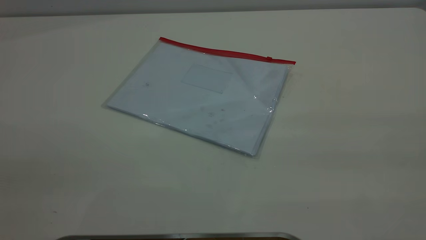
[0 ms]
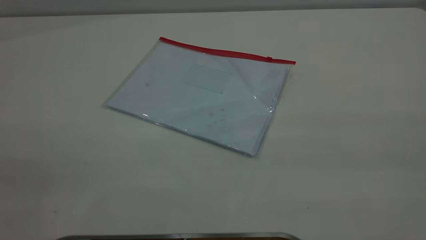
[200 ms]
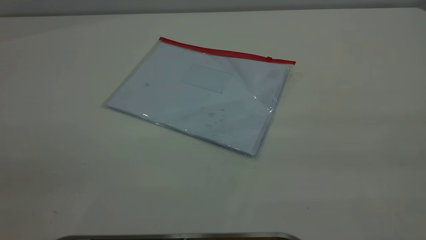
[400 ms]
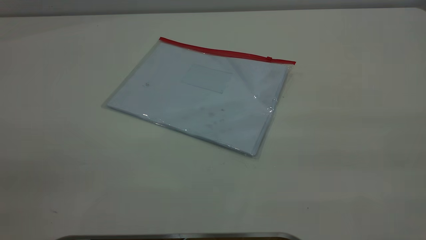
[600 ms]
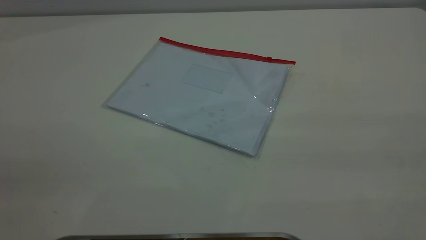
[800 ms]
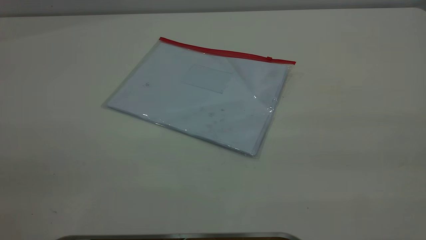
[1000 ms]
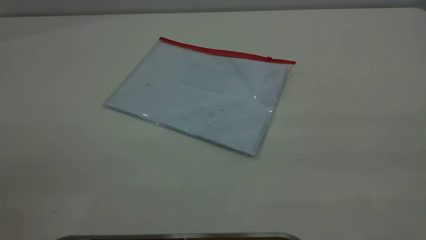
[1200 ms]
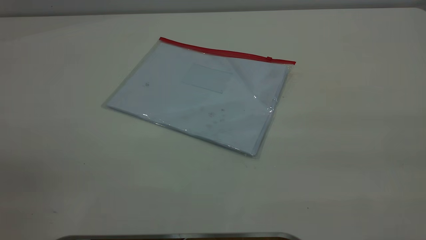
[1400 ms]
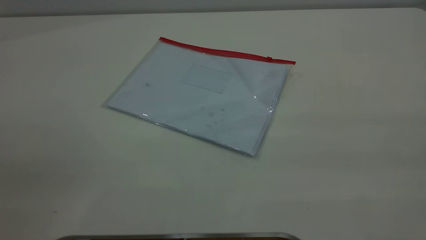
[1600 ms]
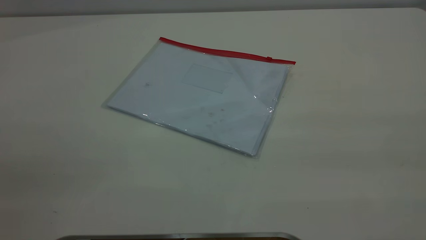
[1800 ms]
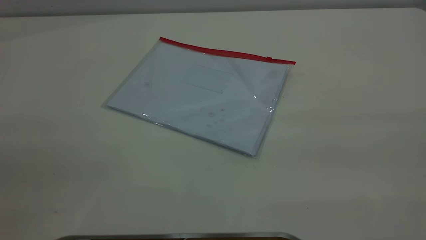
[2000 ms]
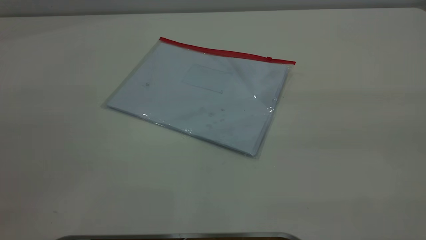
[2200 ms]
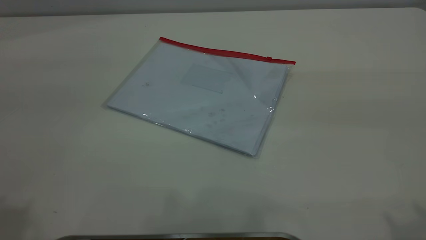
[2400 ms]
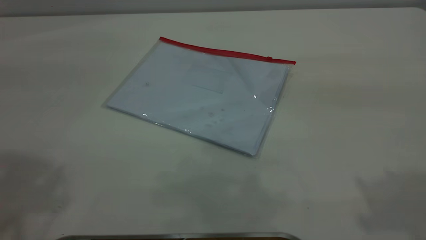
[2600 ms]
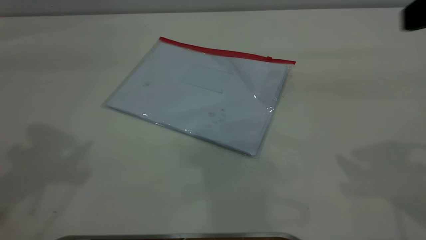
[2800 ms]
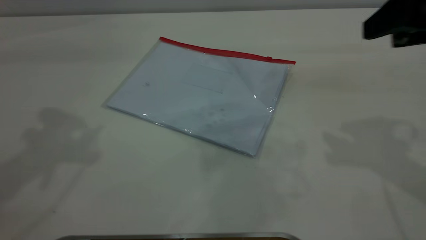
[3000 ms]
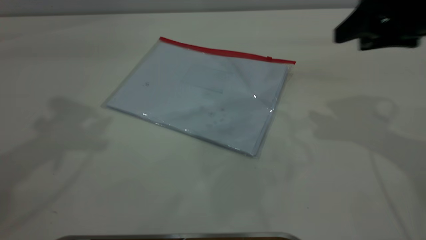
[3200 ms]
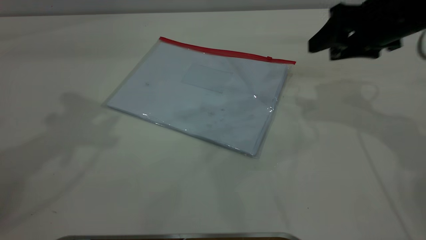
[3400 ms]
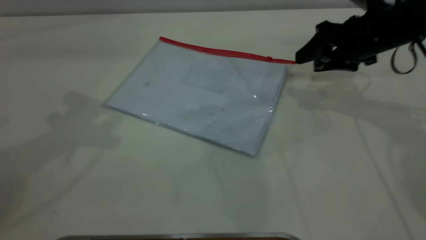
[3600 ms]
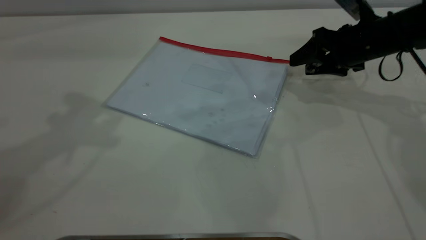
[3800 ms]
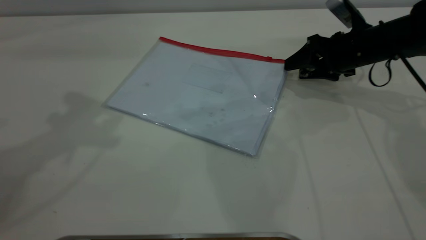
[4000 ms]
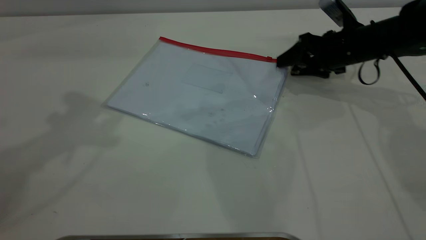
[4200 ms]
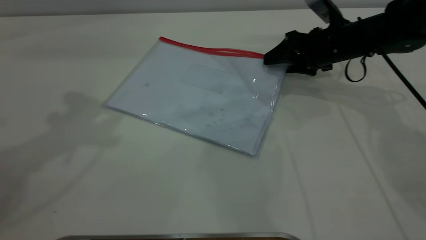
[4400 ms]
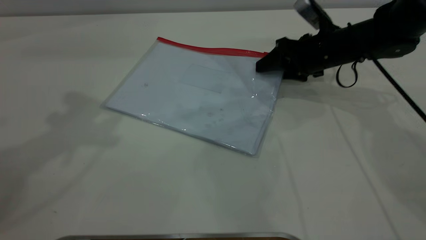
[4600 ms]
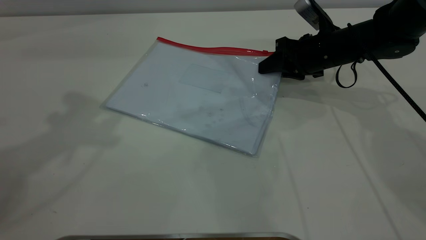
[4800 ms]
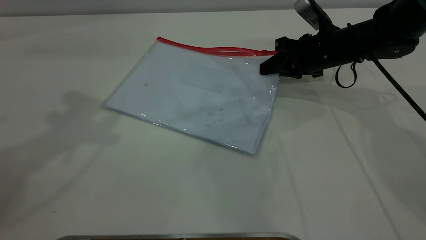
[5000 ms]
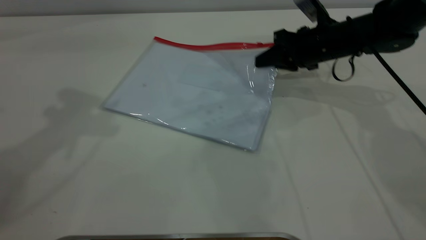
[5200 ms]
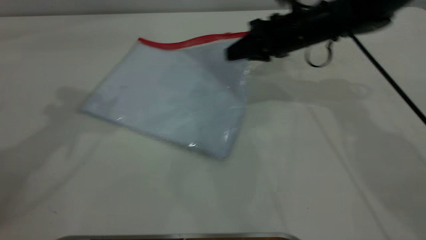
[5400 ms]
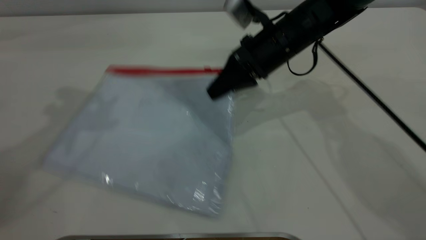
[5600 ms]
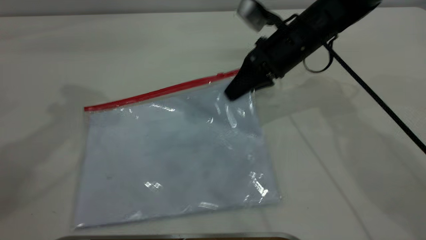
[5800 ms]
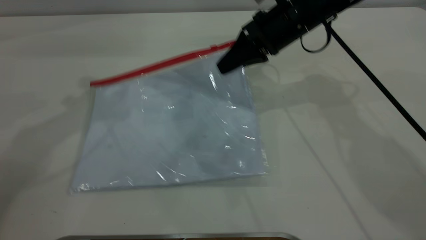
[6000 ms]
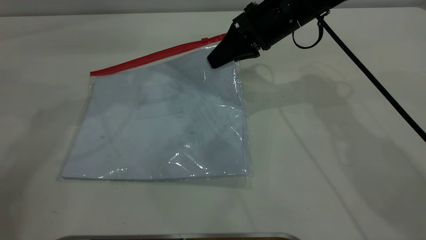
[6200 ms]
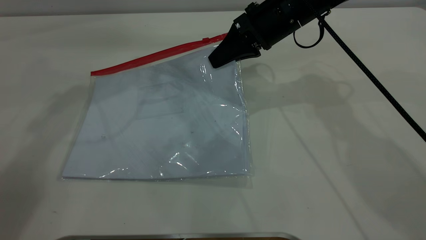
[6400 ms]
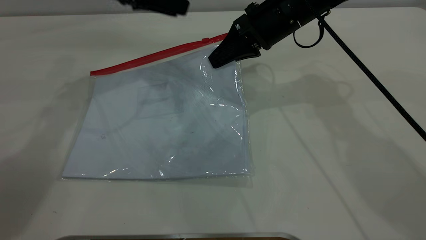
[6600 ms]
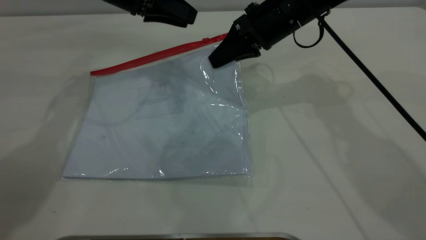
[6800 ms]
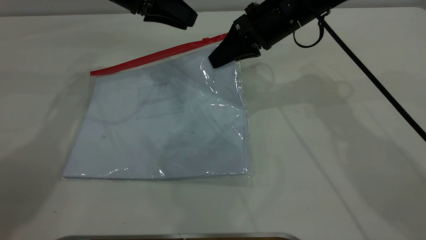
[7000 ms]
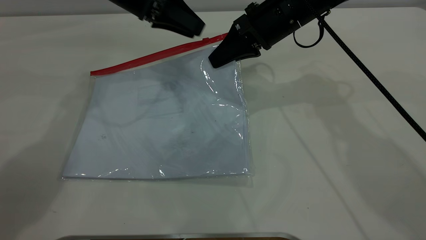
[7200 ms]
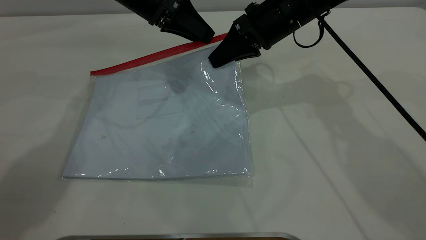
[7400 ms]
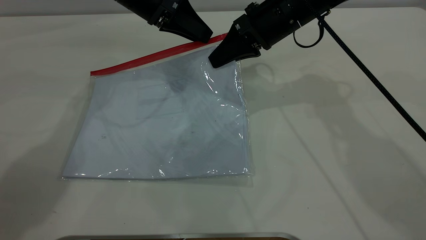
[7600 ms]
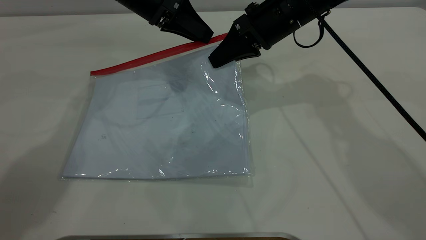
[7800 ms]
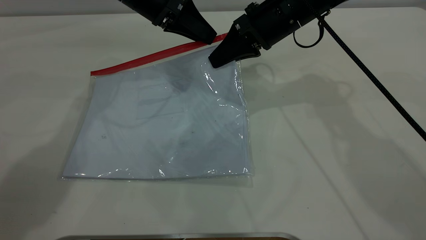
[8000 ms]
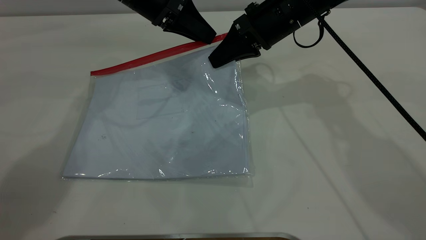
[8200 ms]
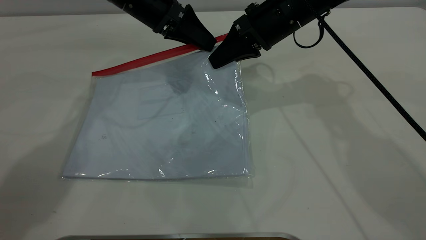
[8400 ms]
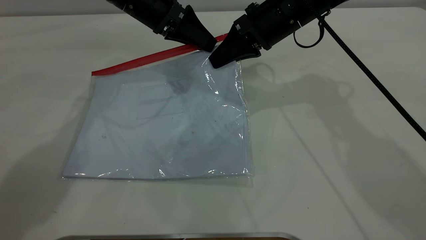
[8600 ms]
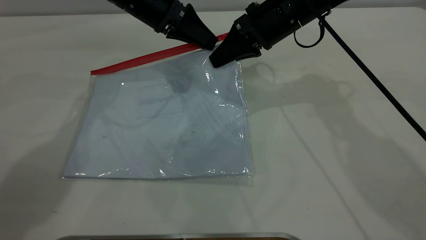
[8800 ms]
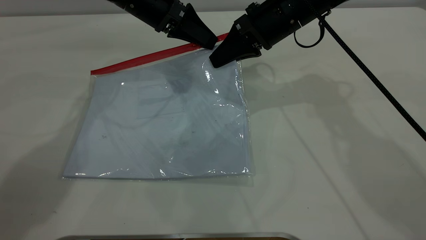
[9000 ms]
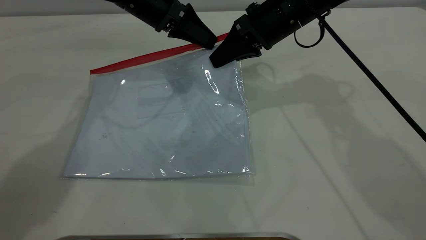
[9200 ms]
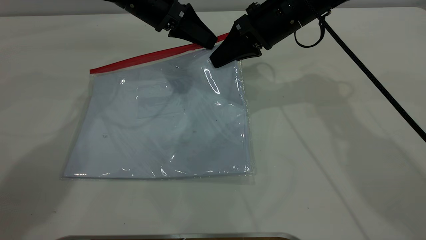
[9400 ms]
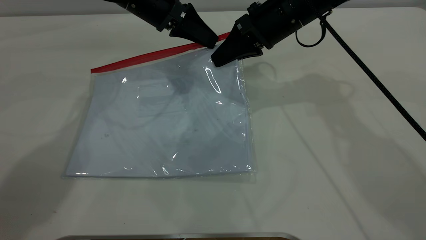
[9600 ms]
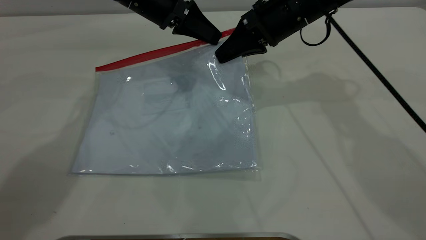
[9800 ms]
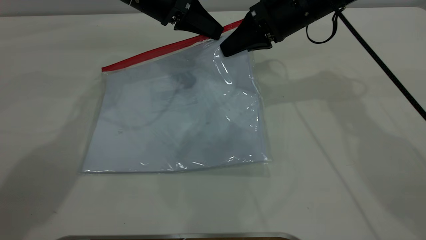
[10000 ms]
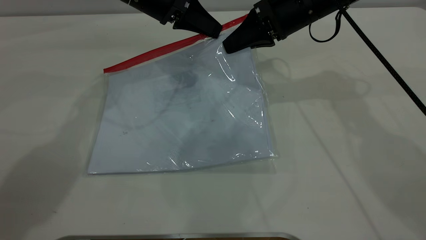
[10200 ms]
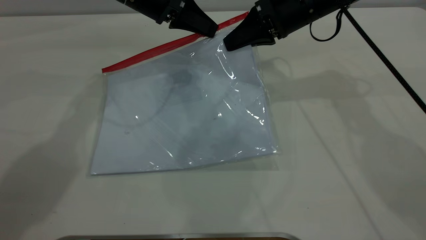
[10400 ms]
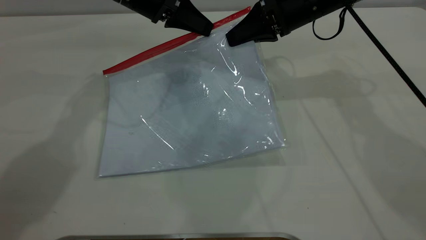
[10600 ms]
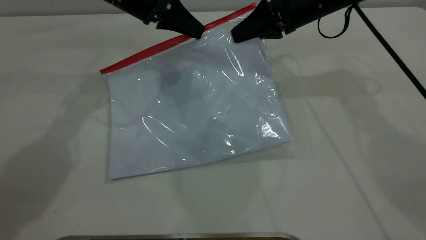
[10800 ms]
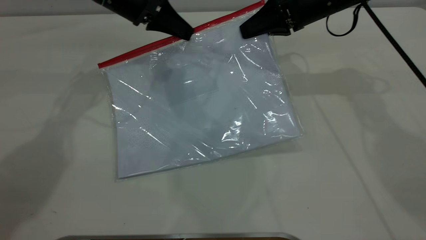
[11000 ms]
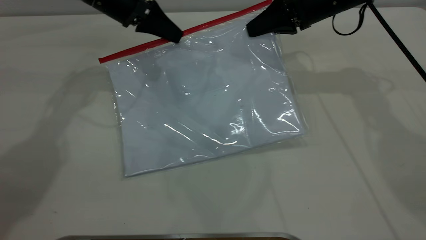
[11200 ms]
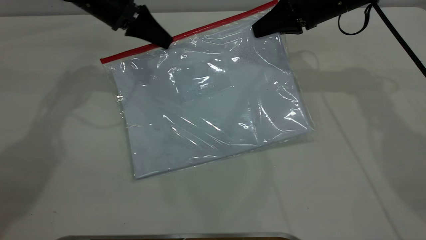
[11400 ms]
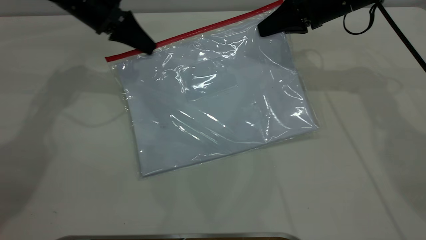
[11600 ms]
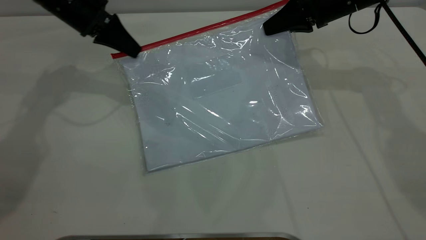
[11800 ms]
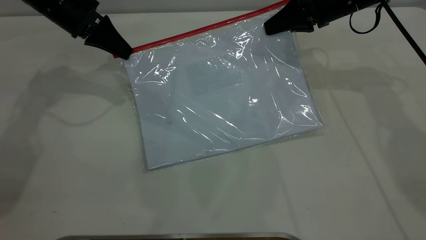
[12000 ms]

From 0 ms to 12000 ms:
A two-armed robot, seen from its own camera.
Step, from 0 ms to 6200 ms: Pick up the transparent plastic bag with the right gripper.
From 0 ms to 1600 ms: The two grippers keep their place.
From 1600 ms to 3000 ms: The right gripper is displaced forward and downward by about 30 cm.
From 3000 ms to 4400 ms: The right gripper moves downward and forward, about 25 cm.
From 4400 ms to 6000 ms: The left gripper shifts some 10 cm downward and forward, while the right gripper moves to the left and upward, about 10 cm, and closes its fingers.
From 6000 ms to 7600 ms: The left gripper shifts roughly 20 cm downward, to the right and forward.
From 7600 ms to 9000 ms: The left gripper closes.
From 9000 ms to 10400 ms: The grippers stay close to where they were, moving slightly.
From 10400 ms to 12000 ms: The right gripper shifts roughly 5 cm to the right, while the left gripper is displaced to the left by some 15 cm.

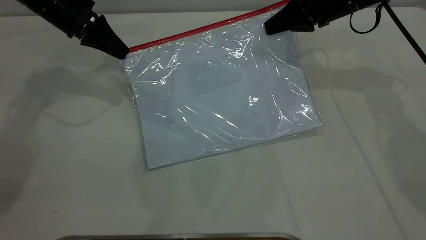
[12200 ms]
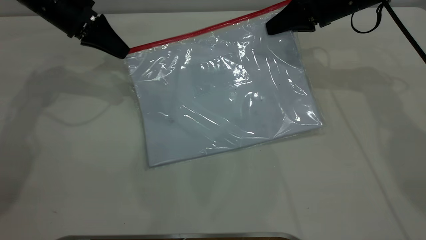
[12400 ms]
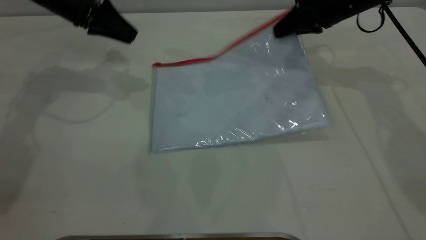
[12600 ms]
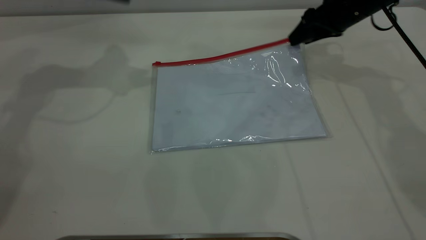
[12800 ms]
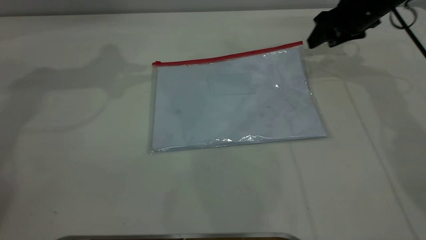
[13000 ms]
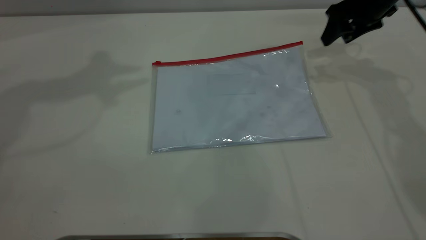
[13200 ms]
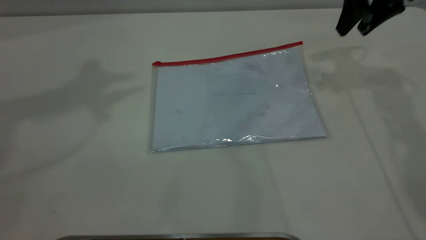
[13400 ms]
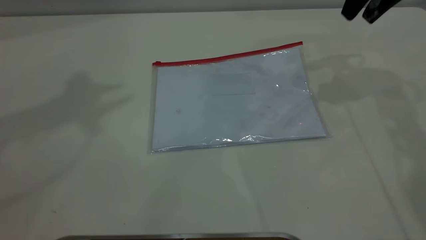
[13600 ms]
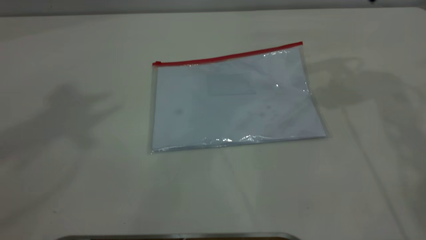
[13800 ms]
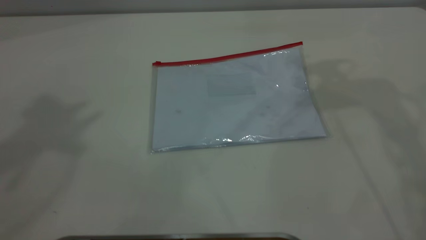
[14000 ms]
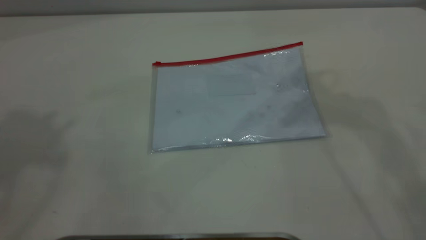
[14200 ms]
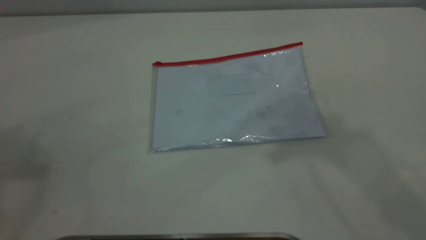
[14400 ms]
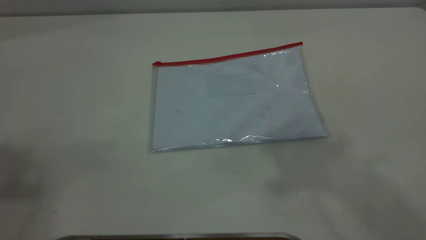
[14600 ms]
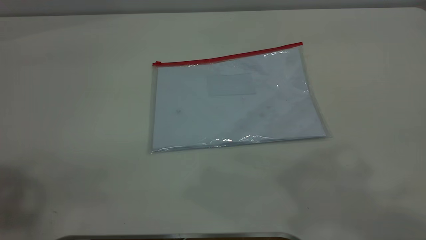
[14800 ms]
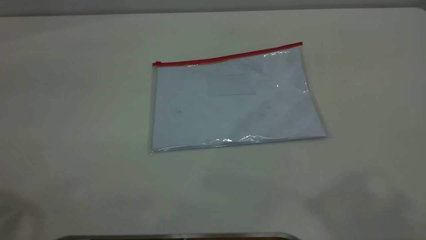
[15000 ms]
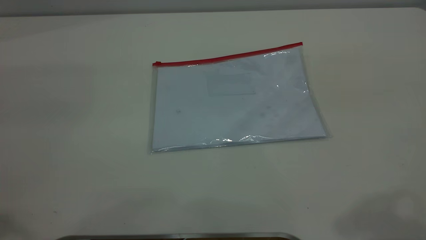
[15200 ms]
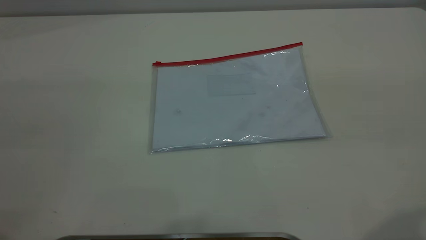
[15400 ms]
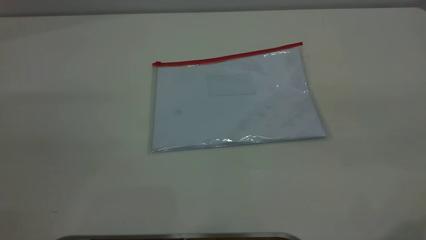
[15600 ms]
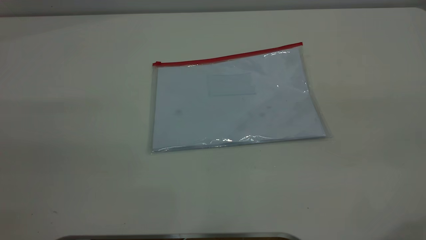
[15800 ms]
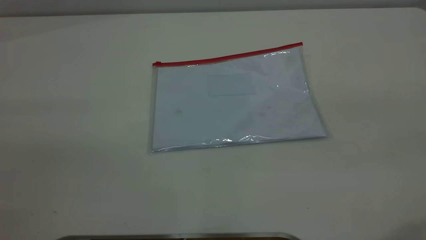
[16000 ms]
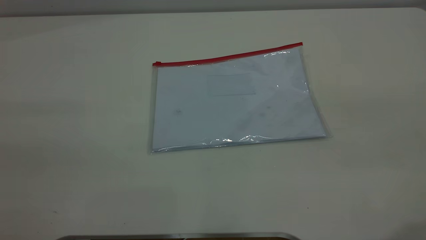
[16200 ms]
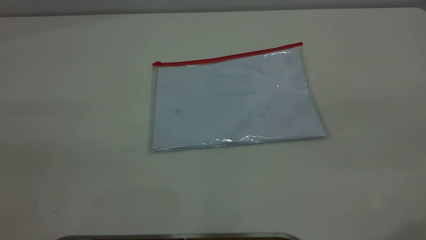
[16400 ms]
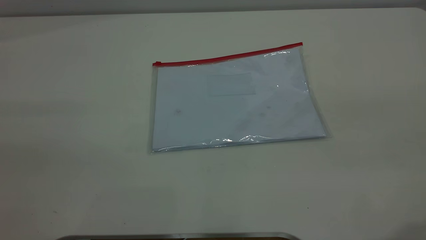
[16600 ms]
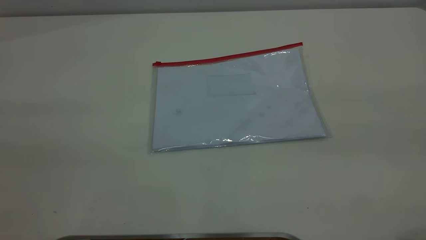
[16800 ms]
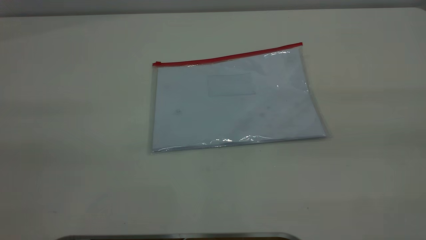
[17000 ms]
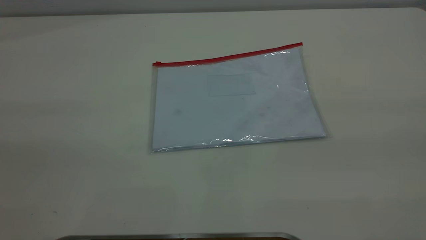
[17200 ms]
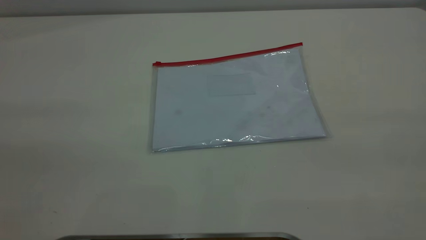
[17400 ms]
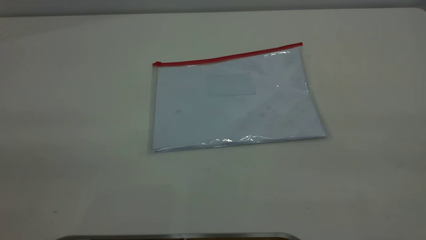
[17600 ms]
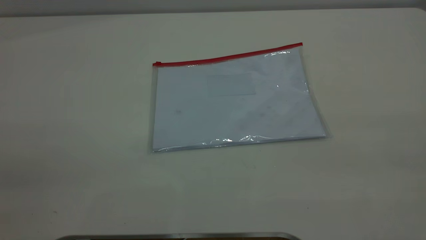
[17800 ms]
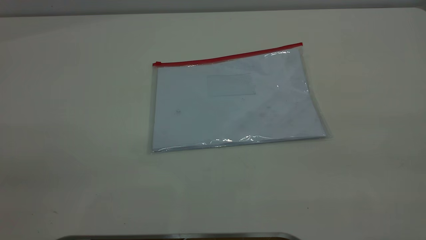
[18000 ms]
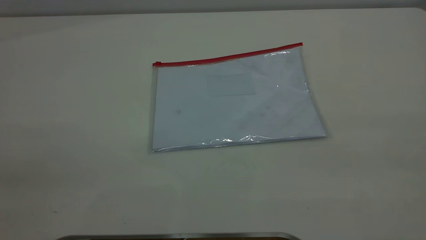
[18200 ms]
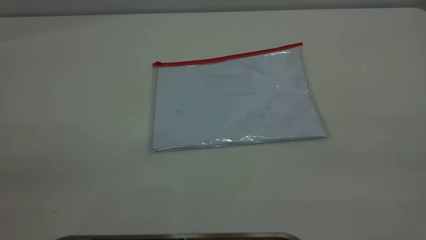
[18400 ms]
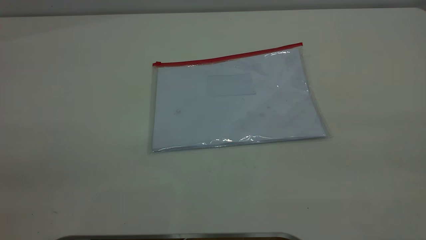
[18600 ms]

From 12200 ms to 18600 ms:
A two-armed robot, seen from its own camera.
Step, from 12600 ms to 13600 ms: Place the transparent plastic bag.
From 12200 ms to 13800 ms: The left gripper heads upward, covering approximately 40 cm, and opens up; the right gripper moves upward, roughly 15 cm, and opens.
